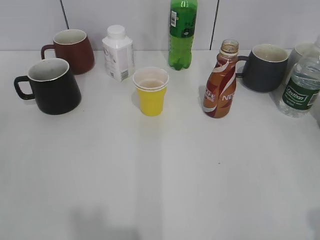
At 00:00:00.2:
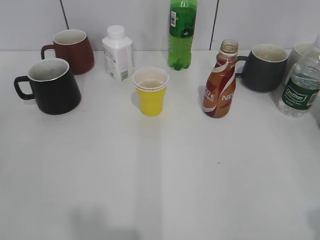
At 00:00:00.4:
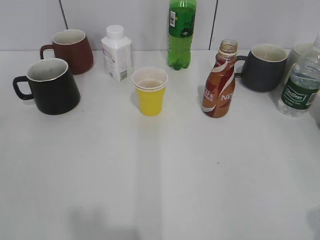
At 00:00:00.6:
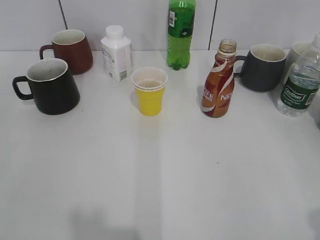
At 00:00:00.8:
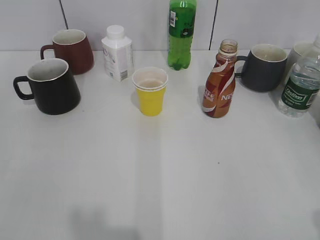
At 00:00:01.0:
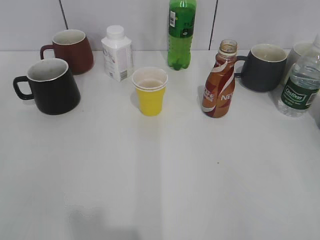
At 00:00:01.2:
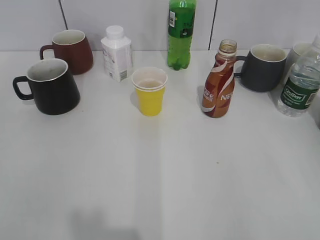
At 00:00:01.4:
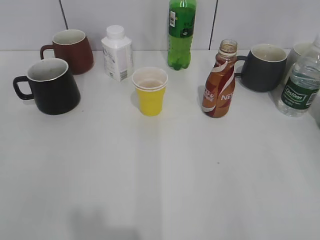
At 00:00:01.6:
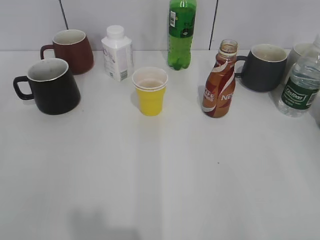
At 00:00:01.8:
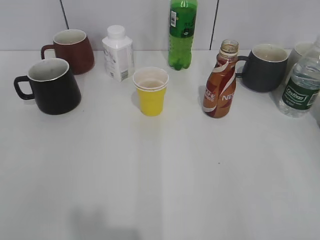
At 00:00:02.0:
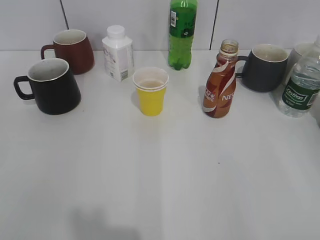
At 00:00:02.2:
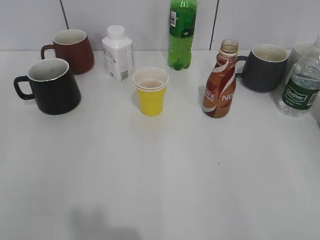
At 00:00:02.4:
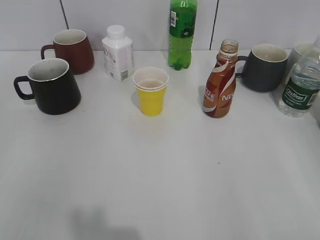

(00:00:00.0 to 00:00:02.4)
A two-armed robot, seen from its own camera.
00:00:01.2 - 00:00:02.4: The two grippers keep their place.
